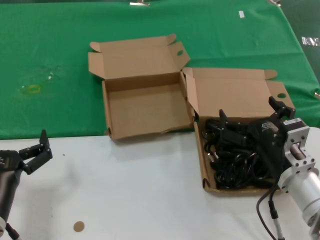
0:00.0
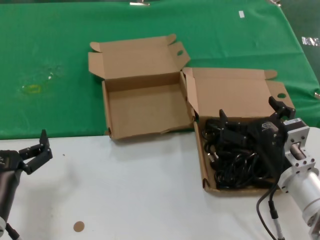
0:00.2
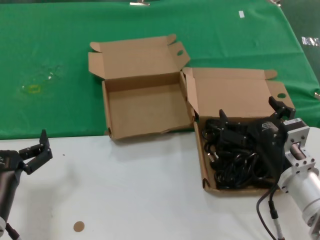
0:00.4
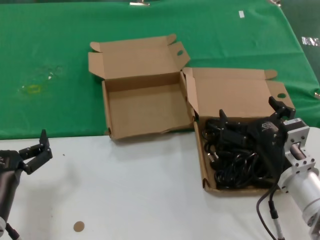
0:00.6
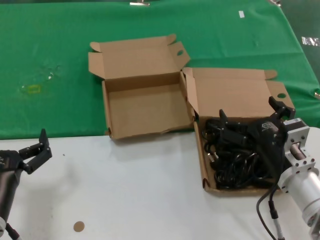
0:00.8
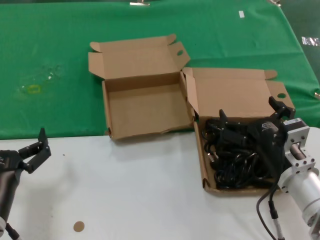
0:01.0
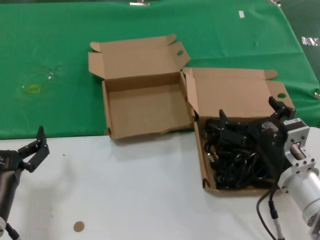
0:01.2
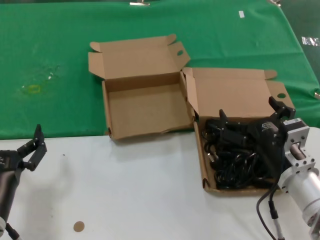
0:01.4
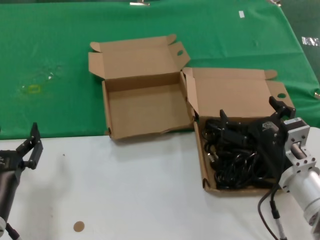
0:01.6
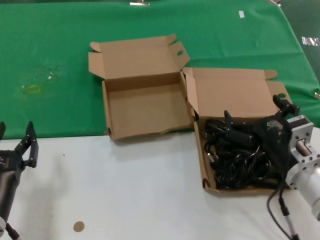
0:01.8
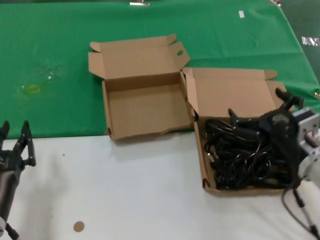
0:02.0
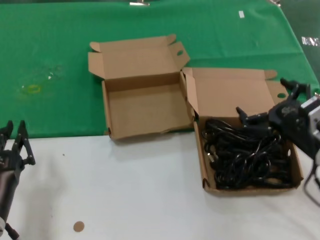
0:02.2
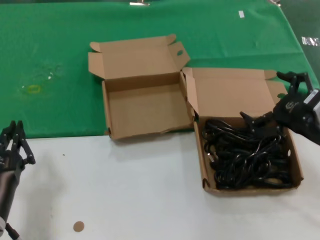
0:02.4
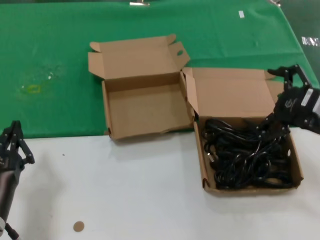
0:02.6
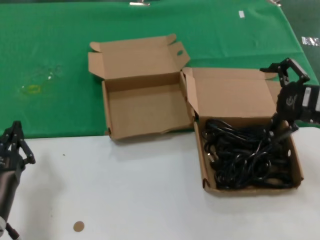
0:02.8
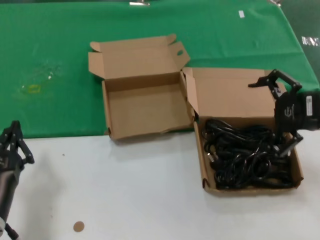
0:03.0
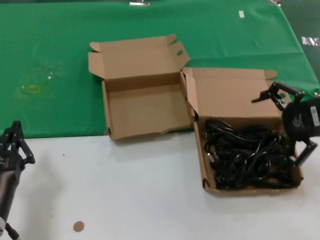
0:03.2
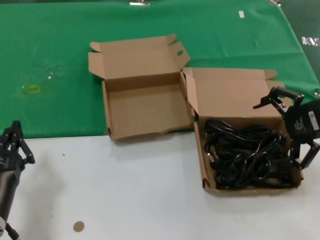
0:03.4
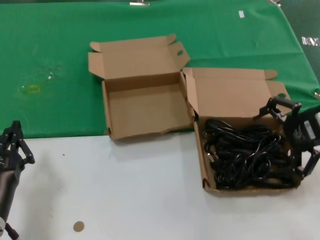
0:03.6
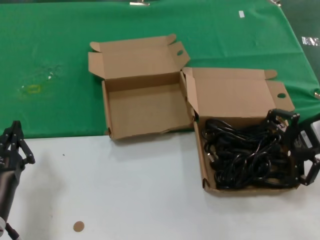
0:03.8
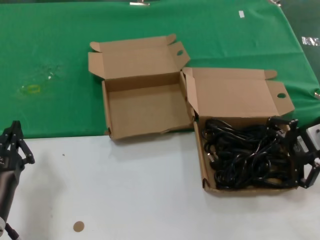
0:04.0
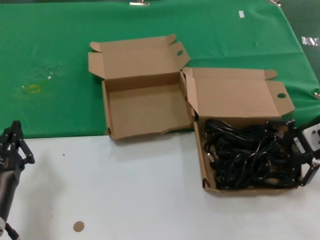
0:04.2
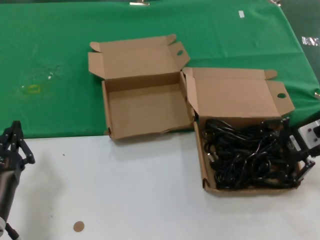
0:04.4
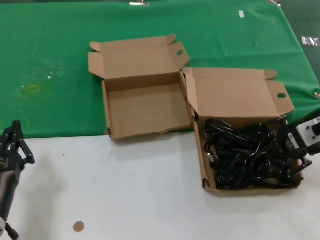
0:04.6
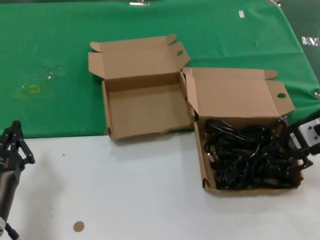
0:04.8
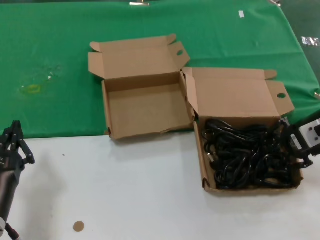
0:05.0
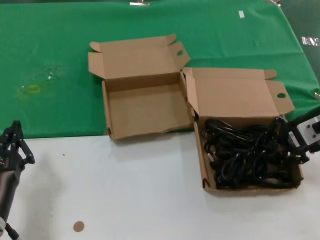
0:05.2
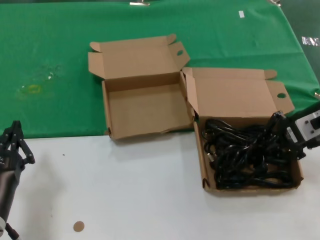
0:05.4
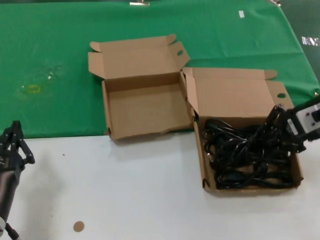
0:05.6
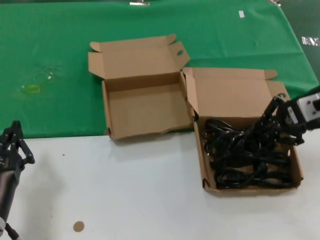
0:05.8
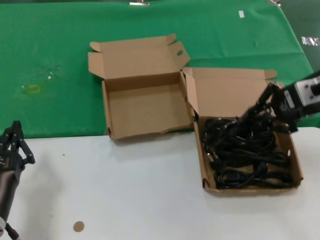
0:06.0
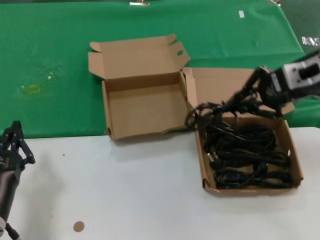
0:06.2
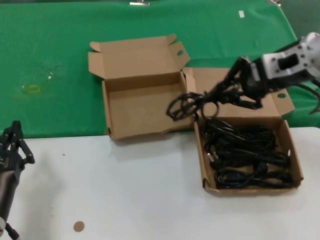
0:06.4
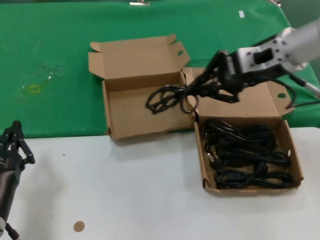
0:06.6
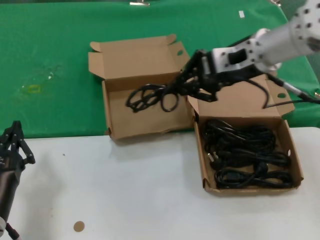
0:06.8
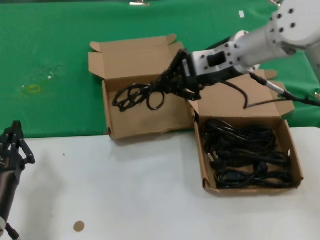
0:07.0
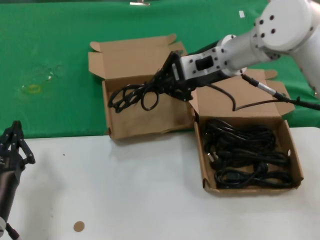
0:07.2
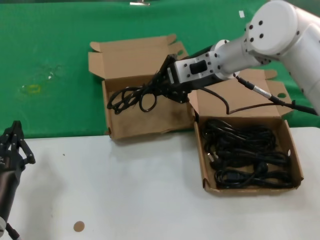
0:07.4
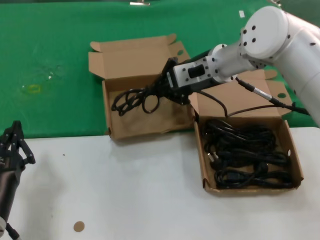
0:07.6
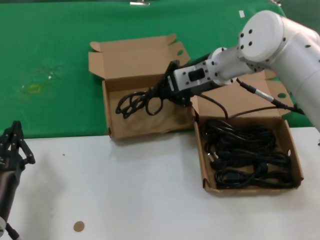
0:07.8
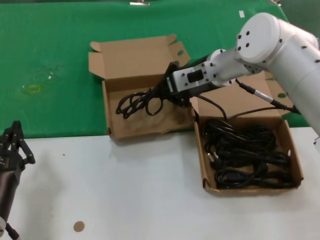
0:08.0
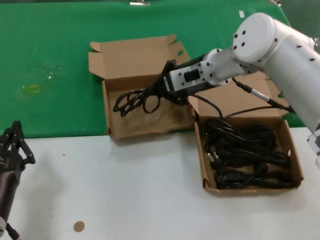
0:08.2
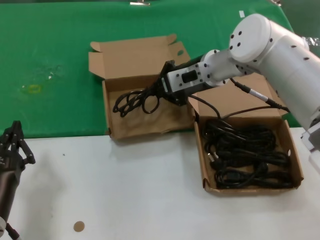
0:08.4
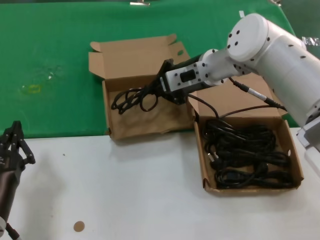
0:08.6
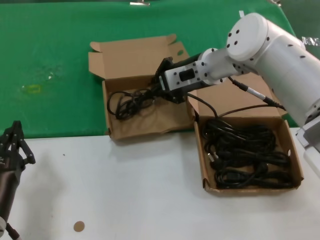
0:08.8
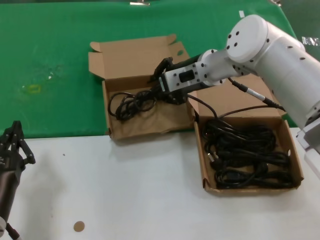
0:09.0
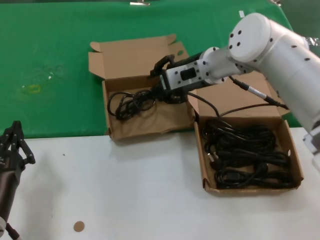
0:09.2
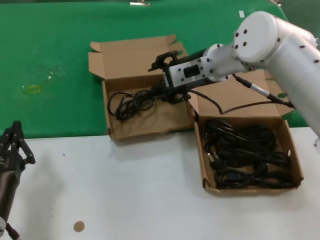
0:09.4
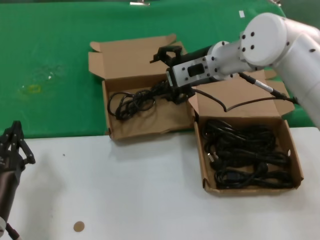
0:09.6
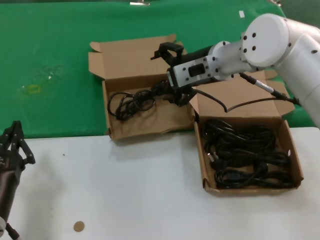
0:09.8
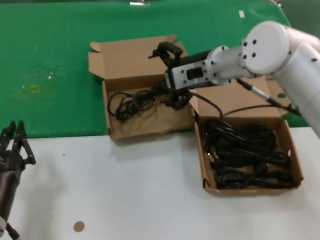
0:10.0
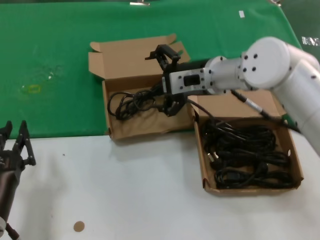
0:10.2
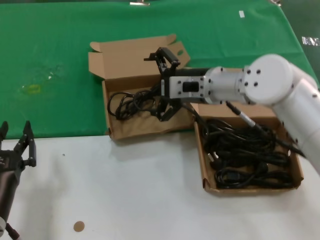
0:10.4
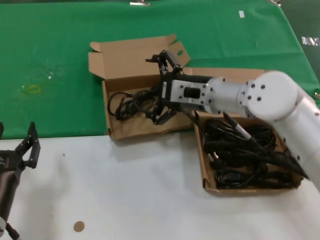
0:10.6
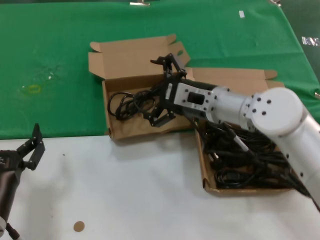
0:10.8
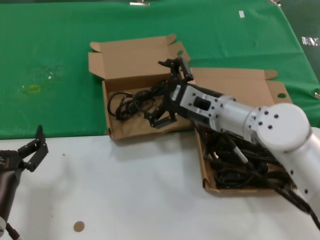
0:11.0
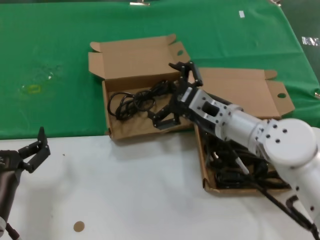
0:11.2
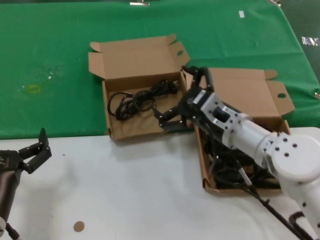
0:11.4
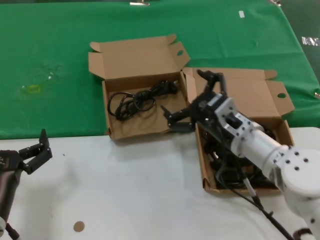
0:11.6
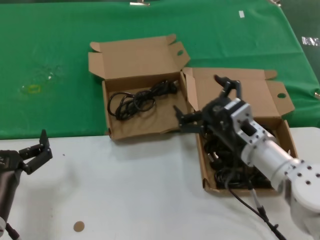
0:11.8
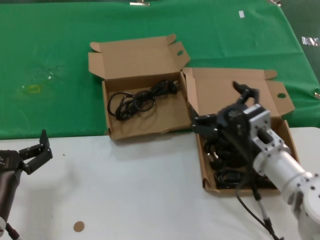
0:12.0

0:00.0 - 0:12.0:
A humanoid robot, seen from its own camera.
Task of the whole recording: take the parts from the box containing them and put them into an empty box.
Step, 0:00.0 - 0:05.0: Grasp the data cable.
Step, 0:05.2 - 0:09.0: Place the data cable in the another box.
0:00.0 - 0:01.6: Both hands stay put.
0:01.6 - 0:03.0: The right hand shifts about 20 cm upward and to the right.
0:03.0 - 0:04.4: The right hand heads forward, covering roughly 5 cm.
0:04.4 - 0:06.0: The right hand goes roughly 5 cm upward.
0:06.0 - 0:07.6: The right hand moves to the left and forward, some 20 cm.
0:07.6 - 0:09.0: The hands make only small movements.
0:09.0 - 0:10.4: The right hand goes about 5 cm backward.
0:10.4 - 0:12.0: The right hand travels backward, downward and to the right by roughly 20 cm.

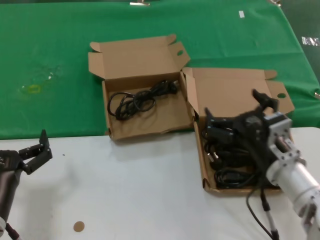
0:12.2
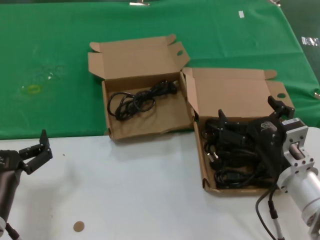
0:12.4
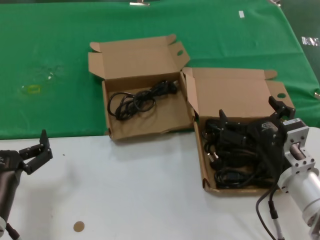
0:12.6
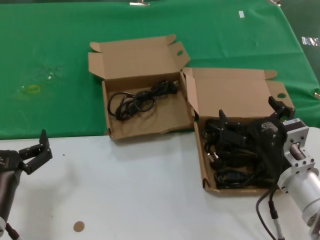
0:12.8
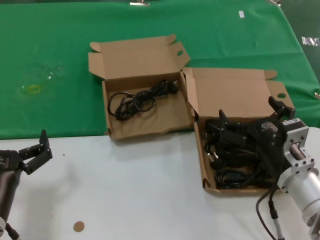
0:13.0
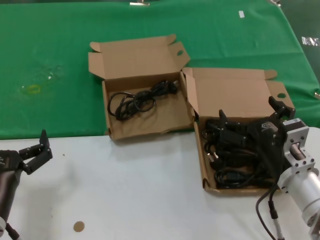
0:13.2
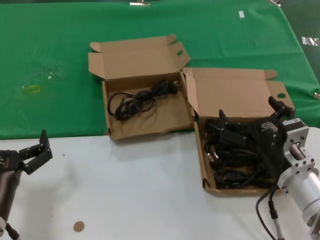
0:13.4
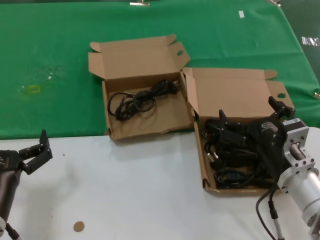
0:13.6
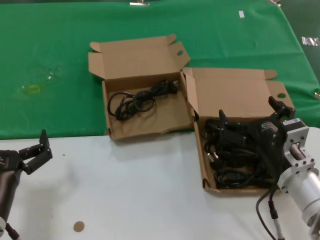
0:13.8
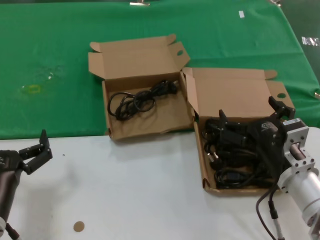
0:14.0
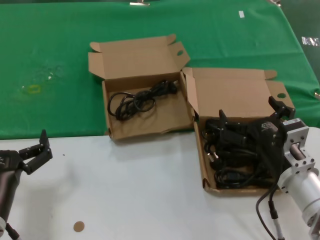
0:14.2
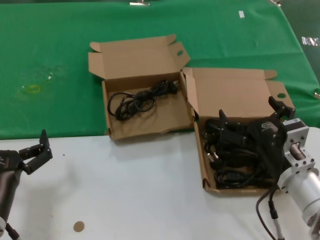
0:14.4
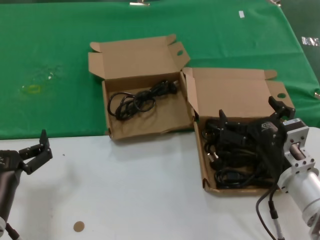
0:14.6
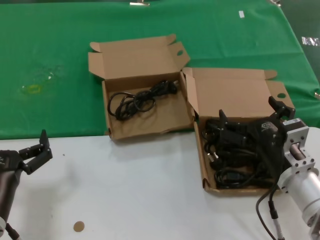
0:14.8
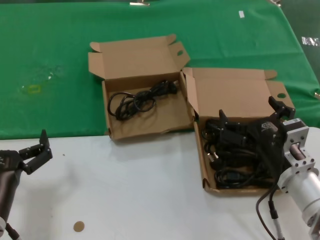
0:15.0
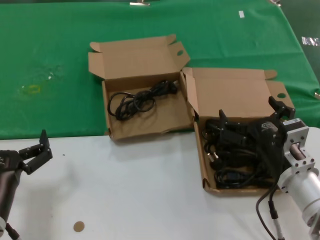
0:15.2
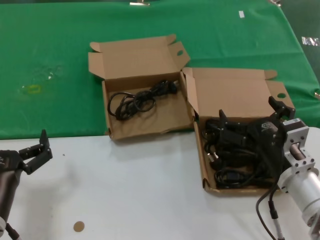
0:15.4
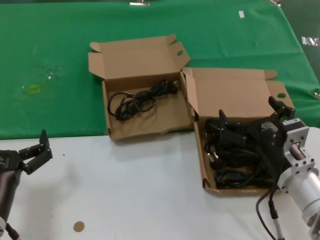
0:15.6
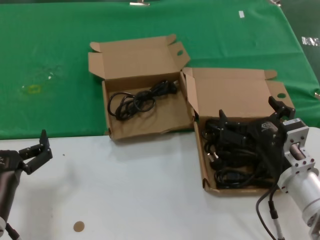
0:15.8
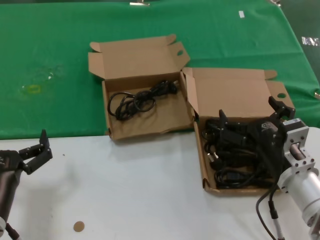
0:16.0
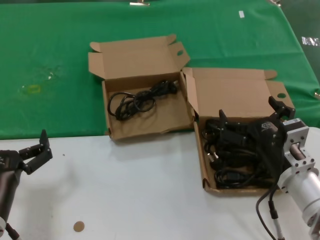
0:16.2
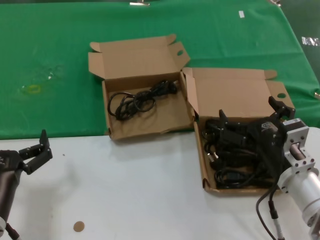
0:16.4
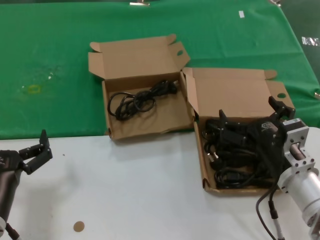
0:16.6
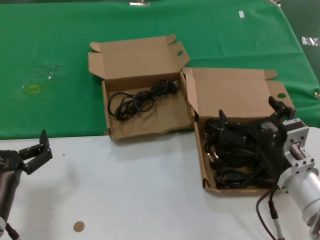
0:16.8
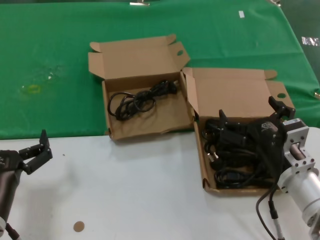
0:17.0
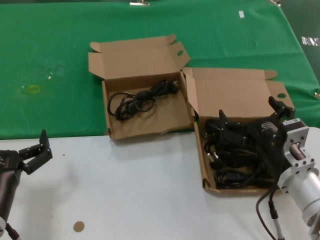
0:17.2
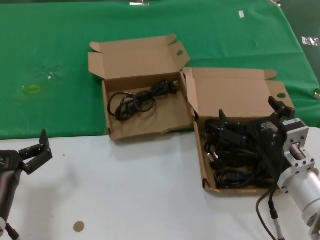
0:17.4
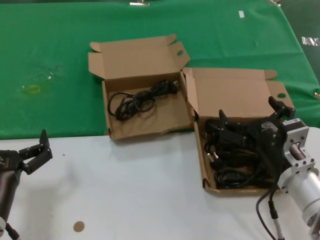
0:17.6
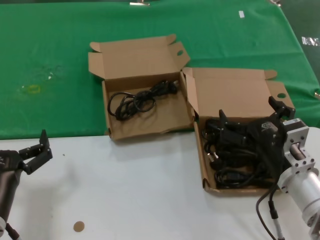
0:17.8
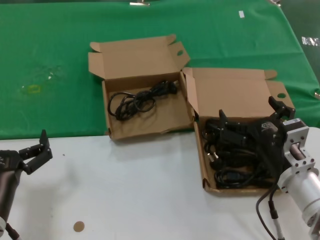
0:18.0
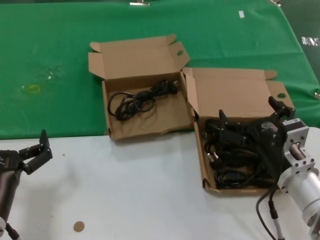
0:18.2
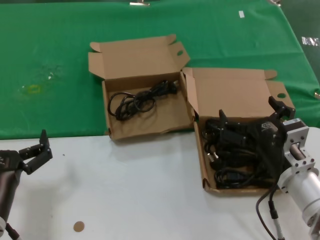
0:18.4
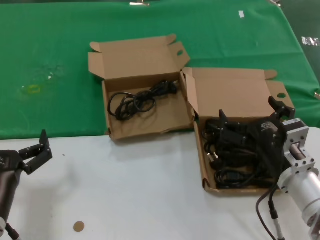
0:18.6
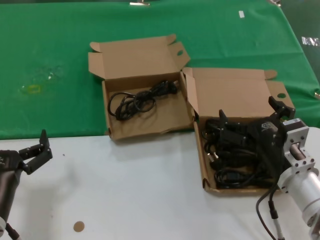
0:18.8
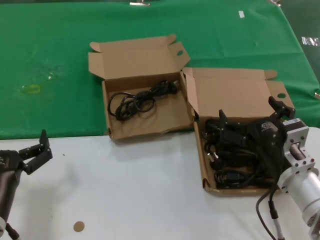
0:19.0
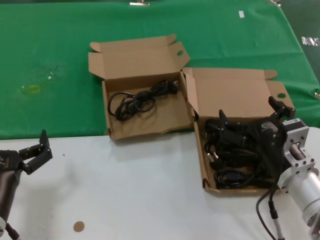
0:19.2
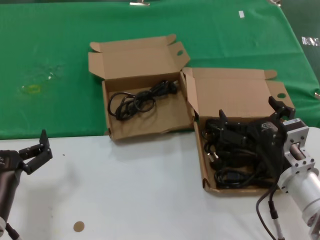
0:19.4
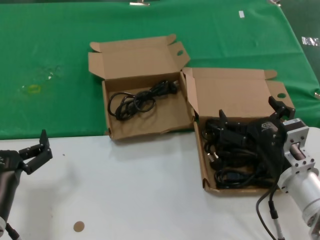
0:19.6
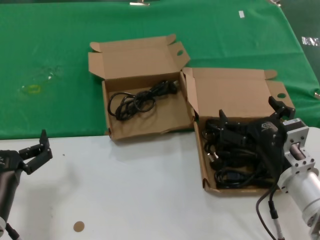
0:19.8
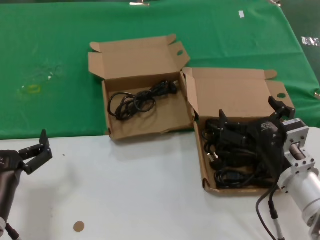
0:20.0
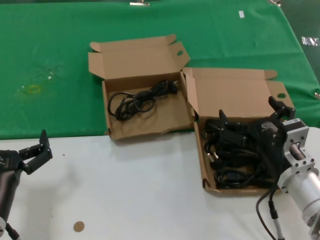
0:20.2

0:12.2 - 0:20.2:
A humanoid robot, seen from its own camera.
Task of the whole recording: take the parts from the box containing them and put them into an empty box.
0:12.2 - 0:13.8: The hands move only a little.
0:13.8 - 0:20.2: Neither hand changes place.
